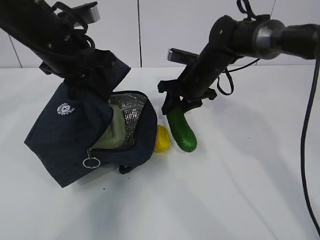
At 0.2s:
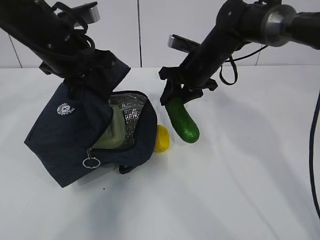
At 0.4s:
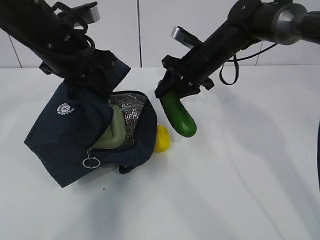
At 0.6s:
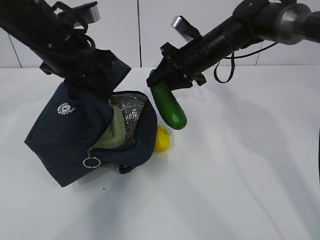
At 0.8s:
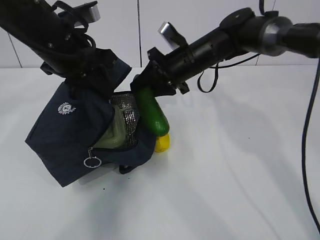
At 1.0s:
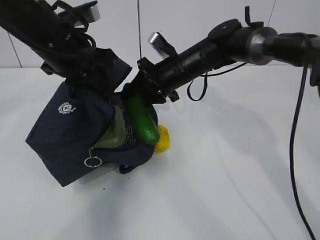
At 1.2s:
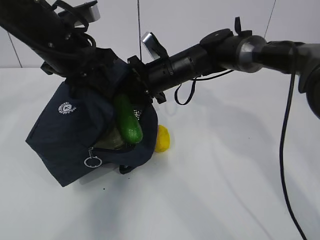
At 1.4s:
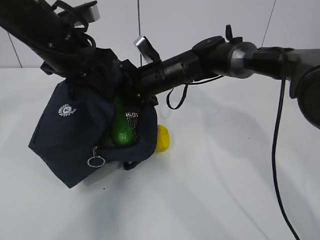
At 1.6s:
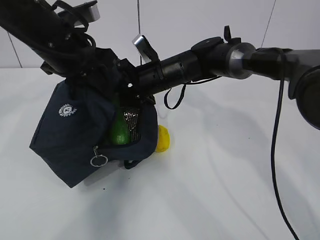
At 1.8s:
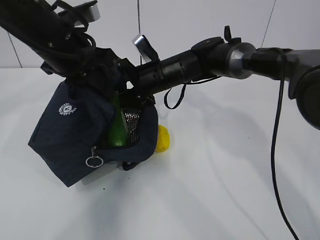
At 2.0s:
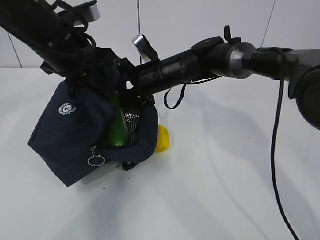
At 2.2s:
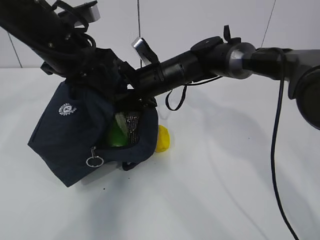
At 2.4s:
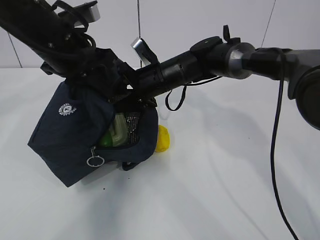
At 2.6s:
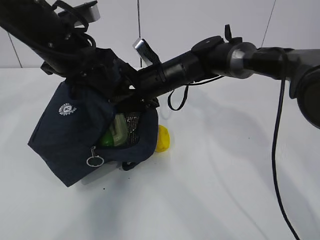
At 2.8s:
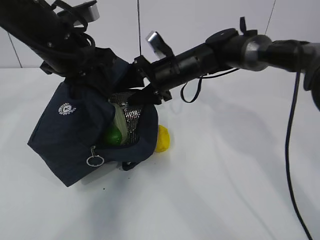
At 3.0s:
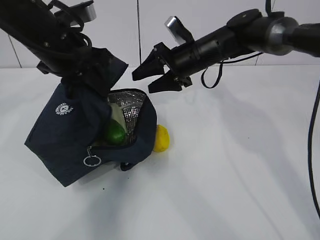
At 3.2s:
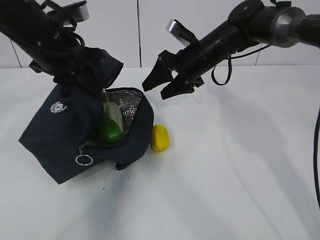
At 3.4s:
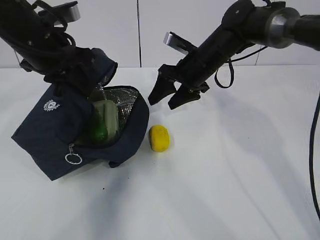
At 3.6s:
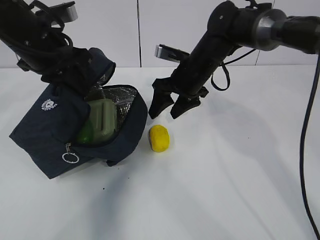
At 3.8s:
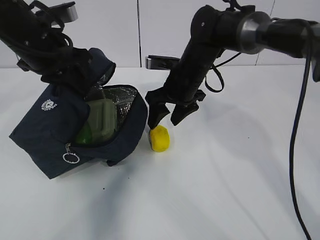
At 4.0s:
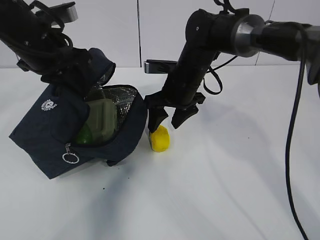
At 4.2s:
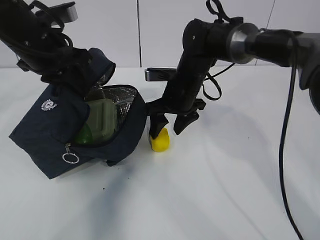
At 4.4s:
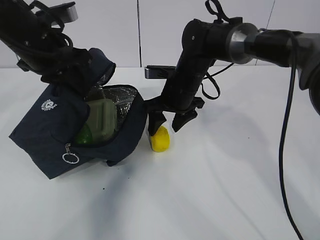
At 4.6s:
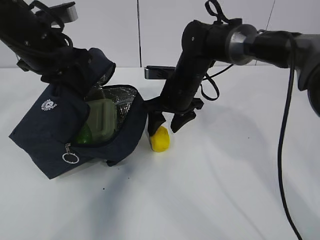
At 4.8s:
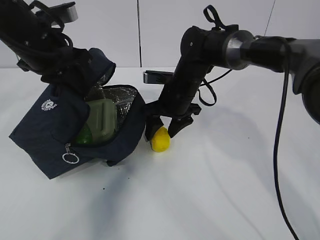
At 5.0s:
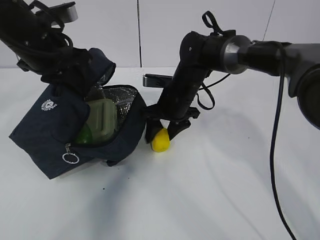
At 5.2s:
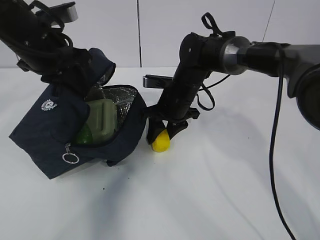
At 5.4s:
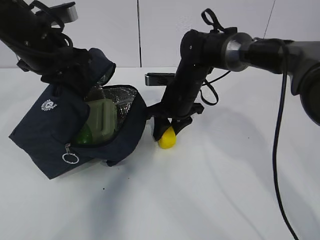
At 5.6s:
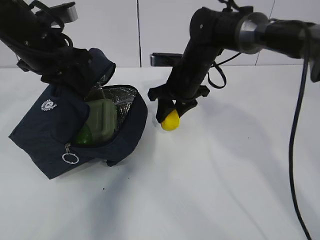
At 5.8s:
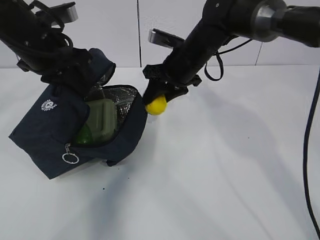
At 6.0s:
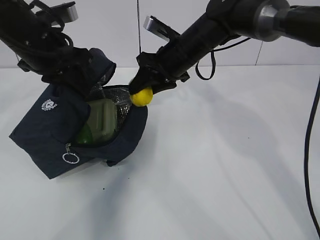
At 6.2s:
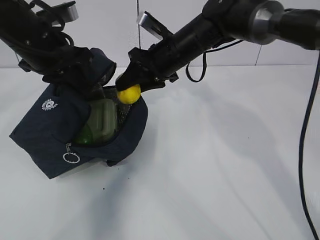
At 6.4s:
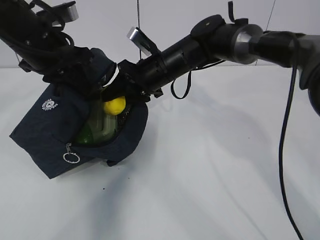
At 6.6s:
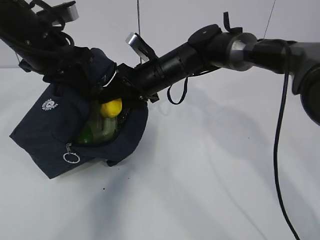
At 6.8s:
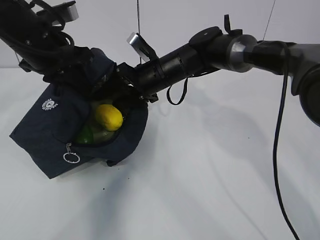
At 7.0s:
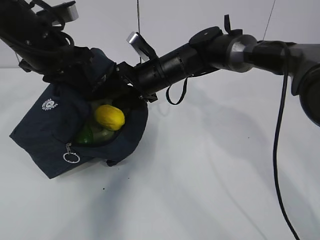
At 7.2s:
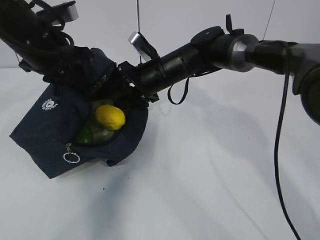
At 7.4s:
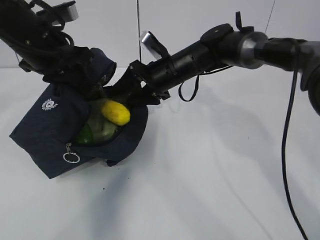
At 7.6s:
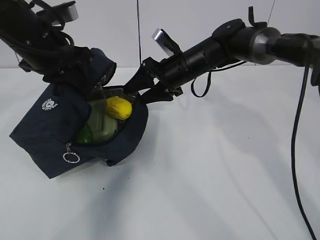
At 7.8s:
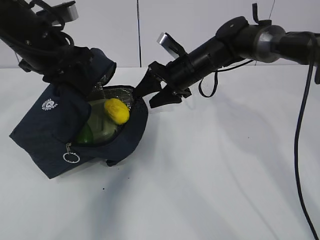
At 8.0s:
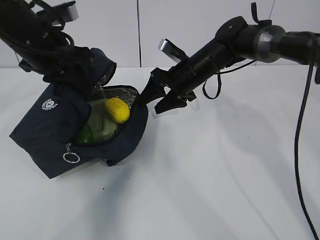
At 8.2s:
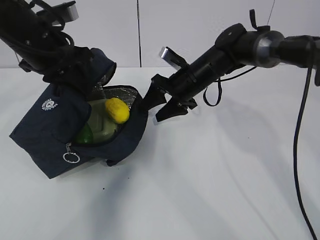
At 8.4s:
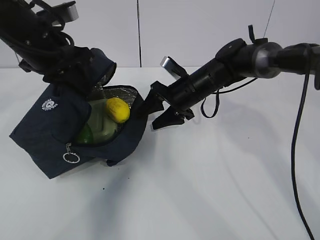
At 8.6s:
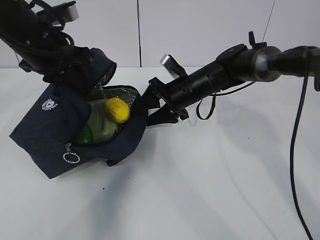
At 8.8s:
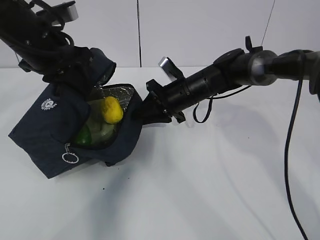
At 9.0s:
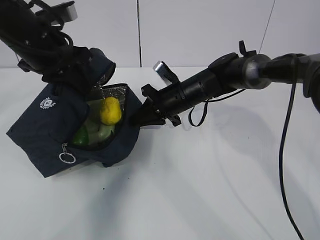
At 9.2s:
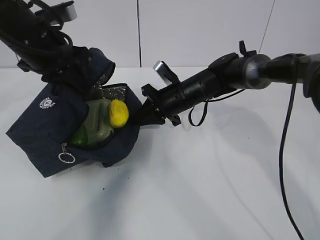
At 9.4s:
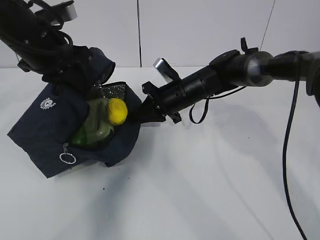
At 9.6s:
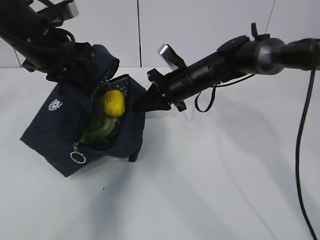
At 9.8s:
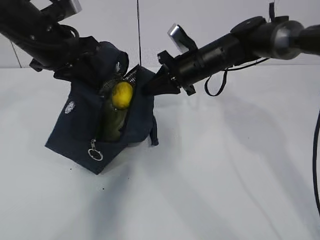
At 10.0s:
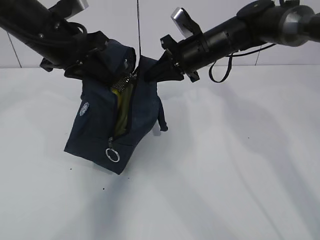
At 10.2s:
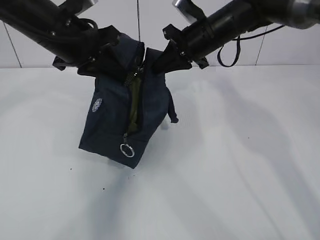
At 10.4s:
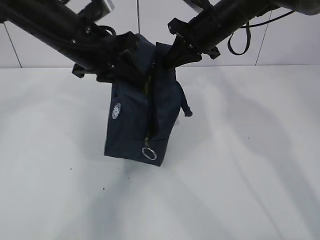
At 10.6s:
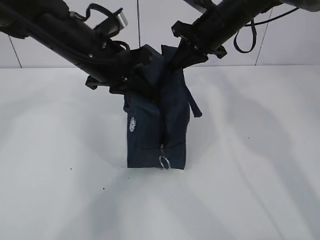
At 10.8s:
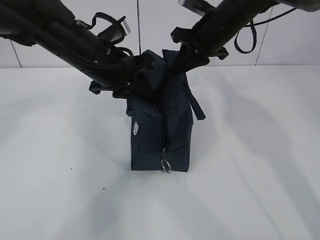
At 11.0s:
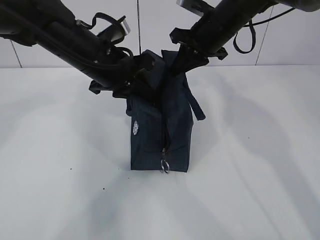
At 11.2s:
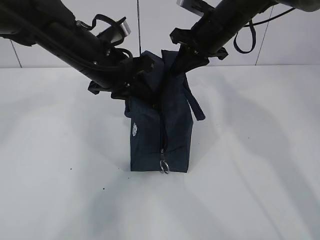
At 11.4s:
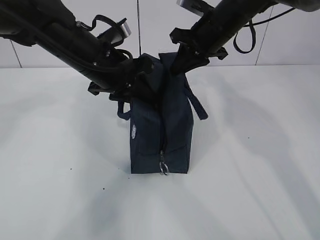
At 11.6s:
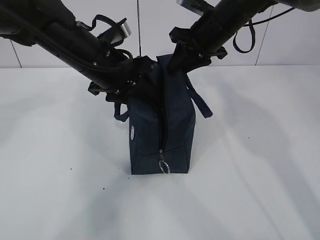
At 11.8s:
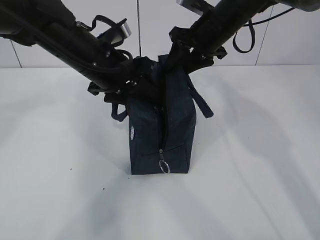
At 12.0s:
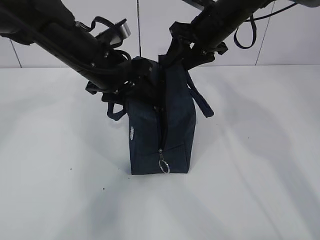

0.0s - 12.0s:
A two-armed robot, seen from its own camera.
Step, 3.0s - 3.4s: Grab the lunch bag with your right hand.
Step, 3.6s - 5.8s: Move the lunch bag to the right.
0.0s - 1.6s: The right gripper heads to the left, covering some 10 cm.
1.6s - 3.0s: The right gripper heads to the right, covering approximately 5 cm.
3.0s - 4.4s: The right gripper shifts by roughly 5 cm.
4.4s - 6.0s: The right gripper shifts approximately 5 cm upward, and closes up.
6.0s - 7.6s: The right gripper shifts by about 5 cm, and opens its fingers.
7.6s - 9.0s: The right gripper heads downward, covering approximately 5 cm, and closes up.
9.0s - 10.4s: The left gripper goes roughly 5 cm to the right; the right gripper is displaced upward by roughly 15 cm.
10.4s - 12.0s: The right gripper opens. The left gripper opens.

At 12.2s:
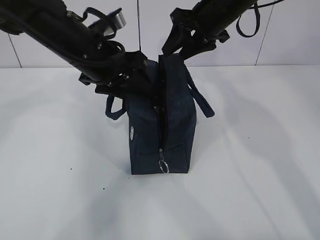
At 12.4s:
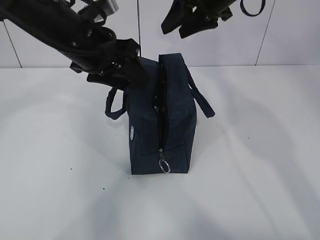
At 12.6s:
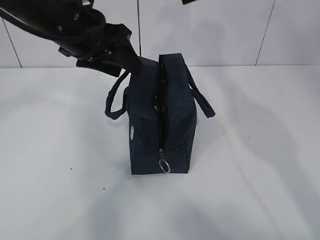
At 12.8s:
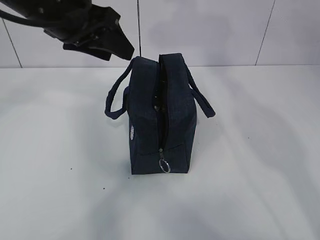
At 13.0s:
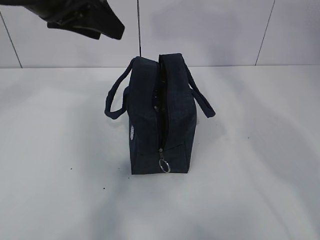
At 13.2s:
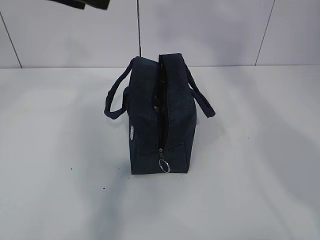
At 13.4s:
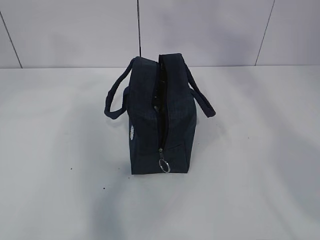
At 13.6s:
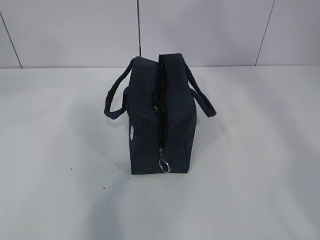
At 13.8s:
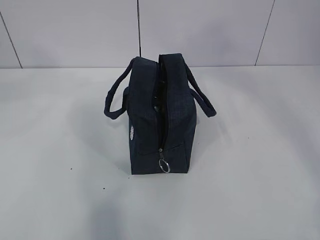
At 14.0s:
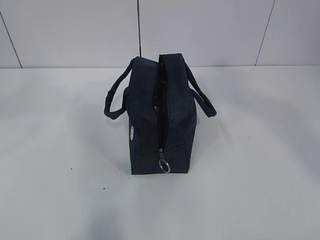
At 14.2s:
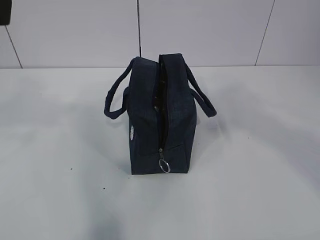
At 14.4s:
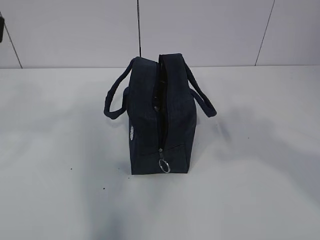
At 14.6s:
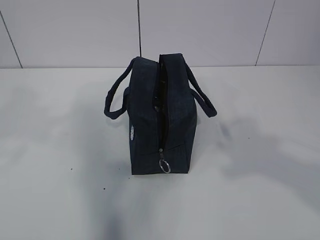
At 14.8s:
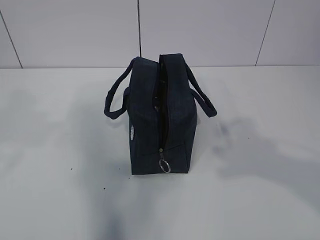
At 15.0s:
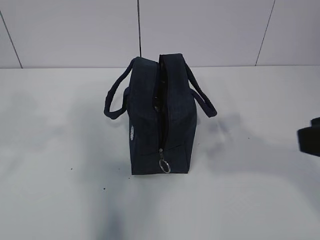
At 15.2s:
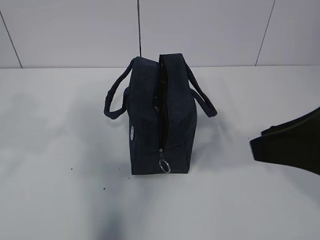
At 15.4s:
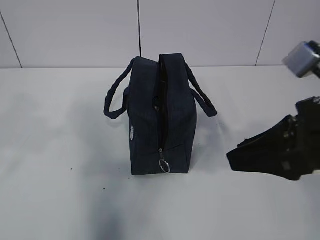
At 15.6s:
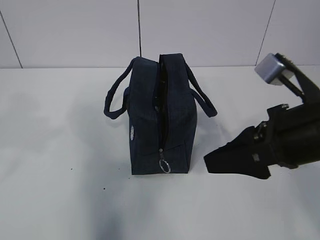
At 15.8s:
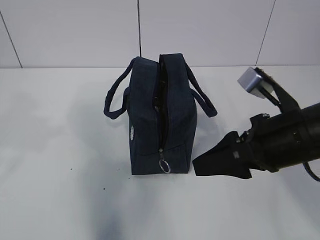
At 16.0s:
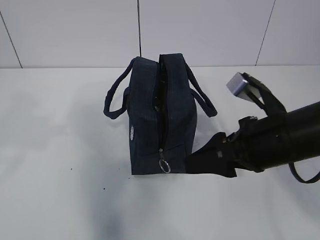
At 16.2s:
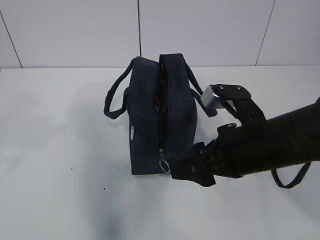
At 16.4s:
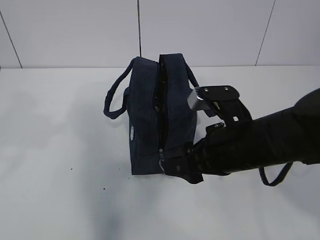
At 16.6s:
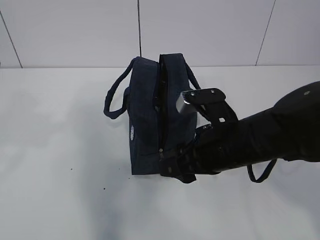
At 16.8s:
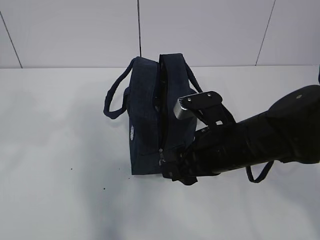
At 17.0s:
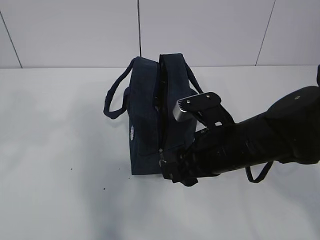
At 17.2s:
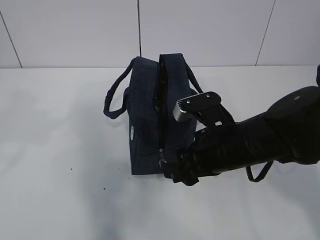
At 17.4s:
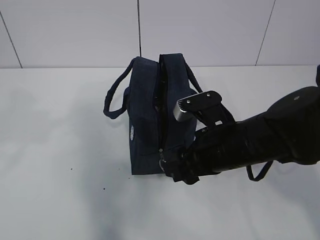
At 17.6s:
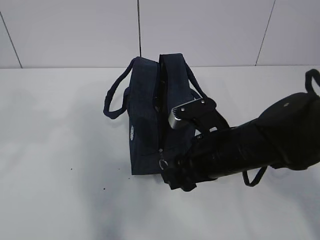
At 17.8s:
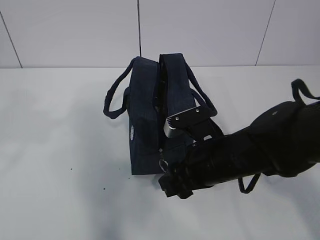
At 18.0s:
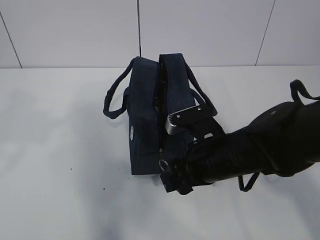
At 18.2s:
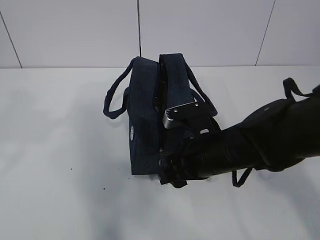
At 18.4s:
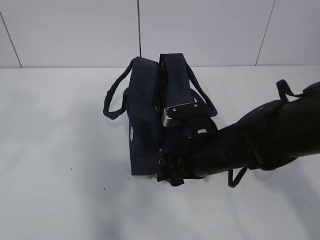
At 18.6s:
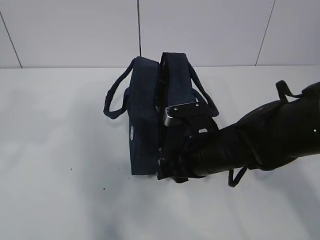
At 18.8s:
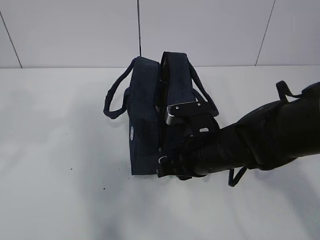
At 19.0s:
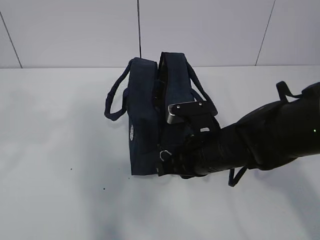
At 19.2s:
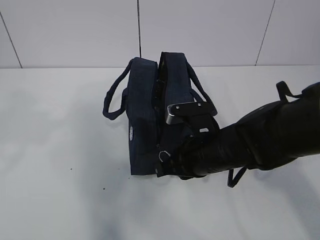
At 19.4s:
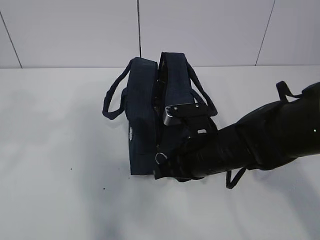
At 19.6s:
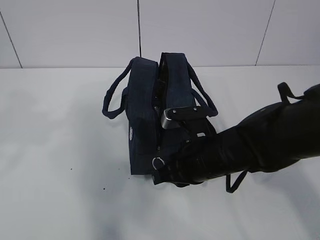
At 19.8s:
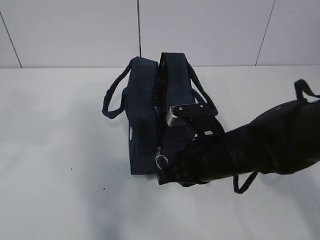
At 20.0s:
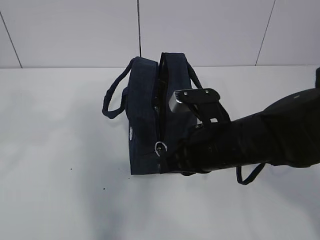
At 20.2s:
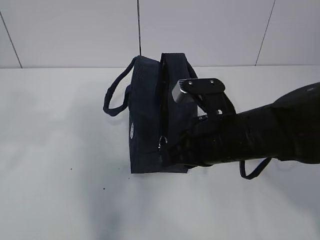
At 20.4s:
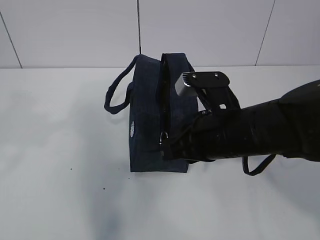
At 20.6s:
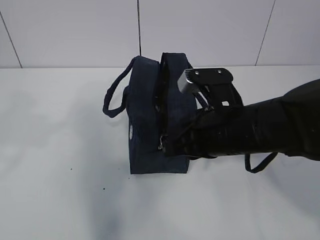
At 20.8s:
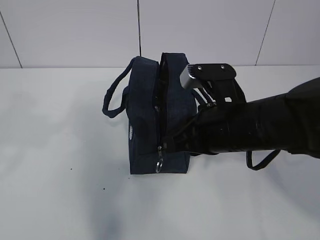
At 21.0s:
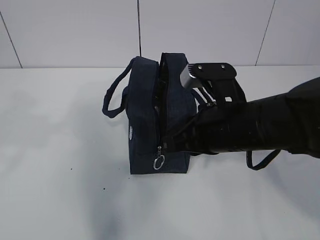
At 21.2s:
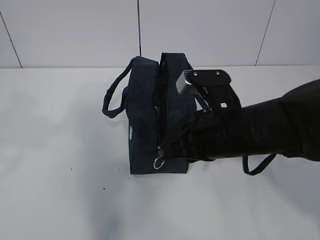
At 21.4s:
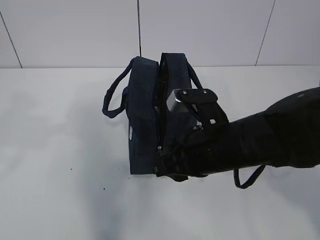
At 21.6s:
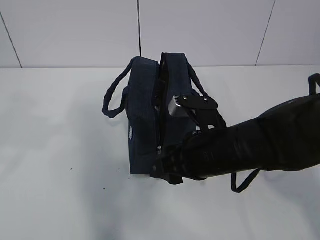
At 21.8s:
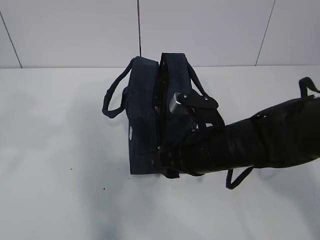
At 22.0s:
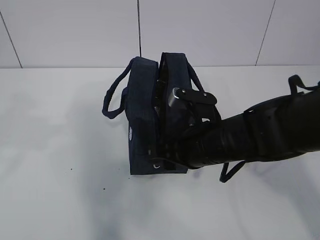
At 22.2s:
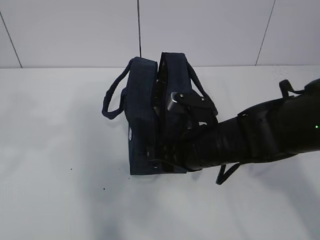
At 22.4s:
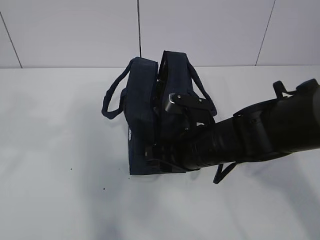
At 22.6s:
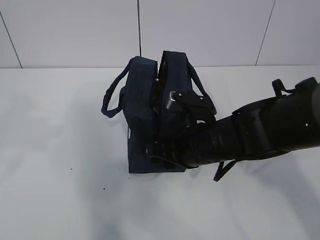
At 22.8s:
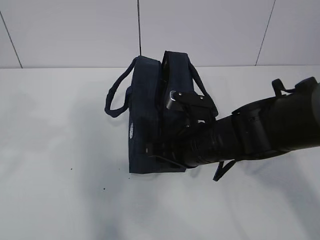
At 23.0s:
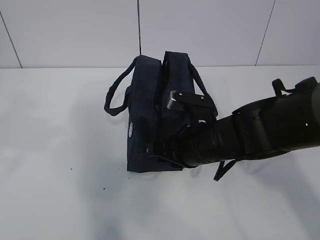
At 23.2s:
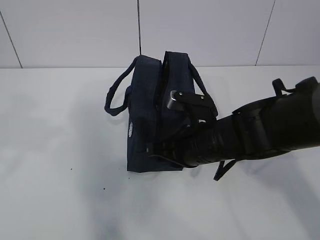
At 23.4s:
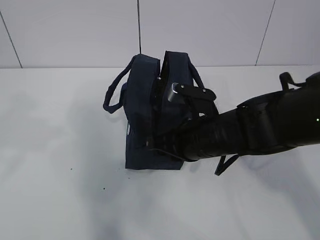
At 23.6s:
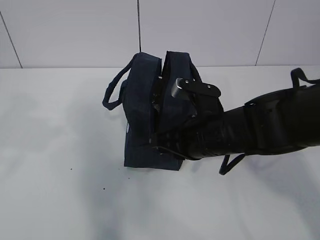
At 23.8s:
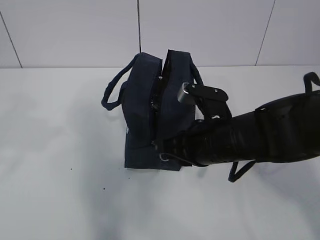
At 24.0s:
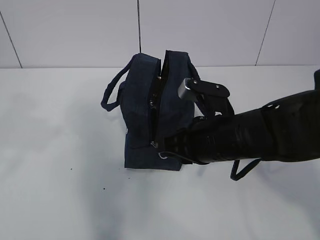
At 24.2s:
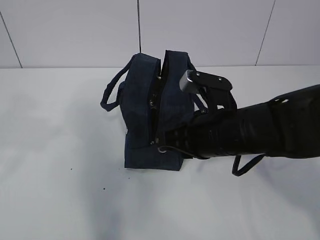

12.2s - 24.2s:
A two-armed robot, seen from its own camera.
12.2s - 13.8s: The left gripper shifts some 25 cm upward, backward and to the left, while the right gripper shifts roughly 50 cm backward and upward.
13.8s - 15.2s: The left gripper is displaced downward and backward by about 10 cm; the right gripper moves downward, some 30 cm.
15.2s - 16.6s: The right gripper goes roughly 20 cm downward, forward and to the left.
16.6s - 18.2s: The grippers stay close to where they were, moving slightly.
18.2s - 19.8s: The right gripper closes up.
19.8s - 21.2s: The right gripper travels upward by roughly 5 cm.
21.2s - 22.6s: The right gripper heads downward, covering about 5 cm, and opens.
22.6s - 24.2s: The right gripper heads upward, covering roughly 5 cm, and closes up.
